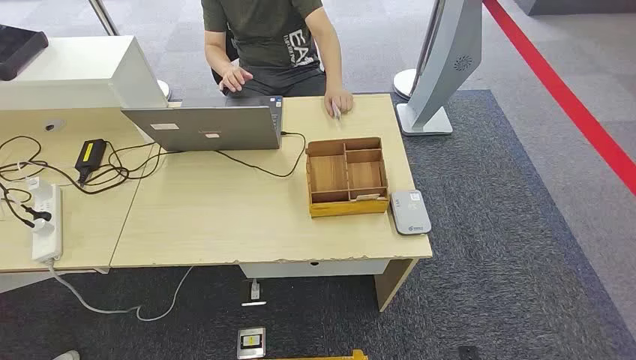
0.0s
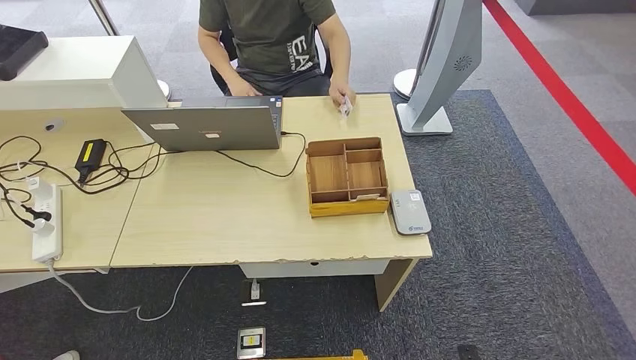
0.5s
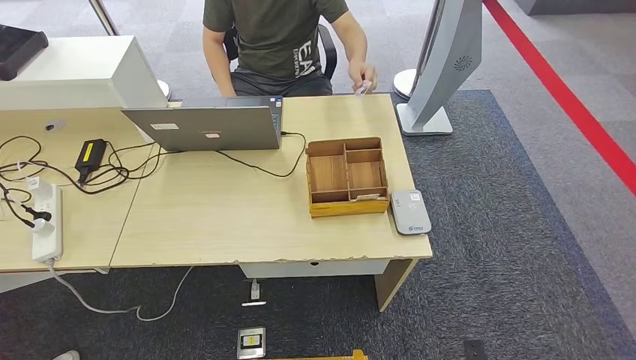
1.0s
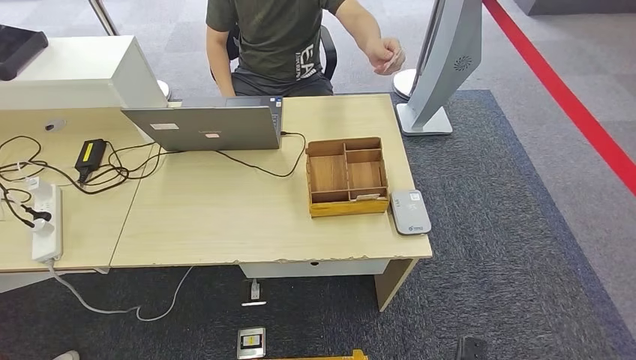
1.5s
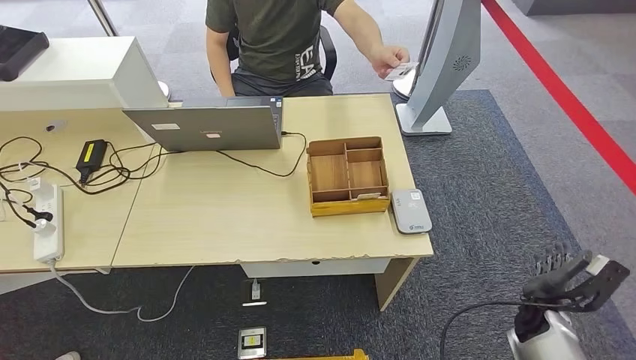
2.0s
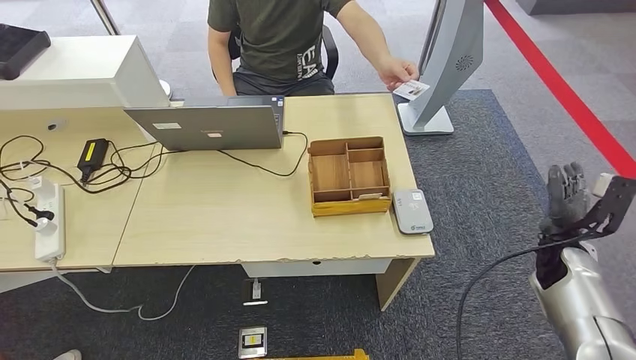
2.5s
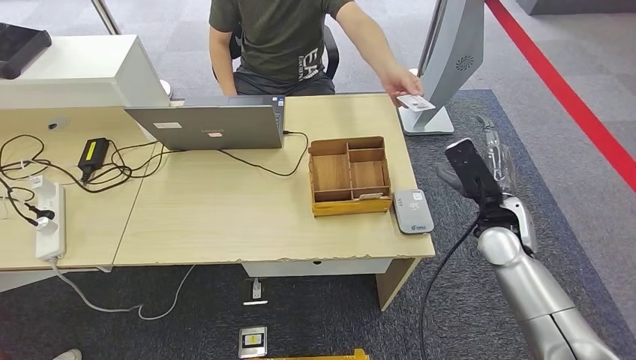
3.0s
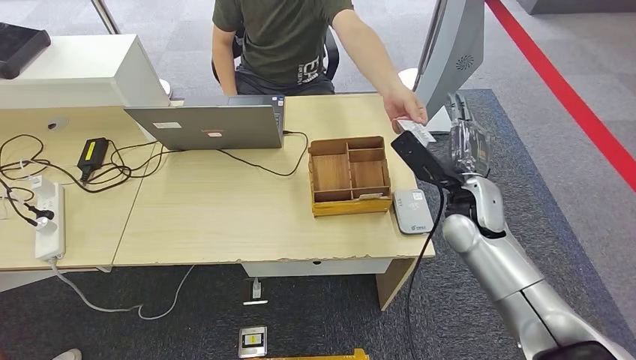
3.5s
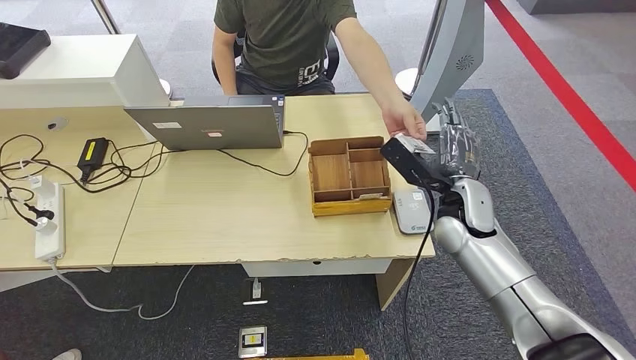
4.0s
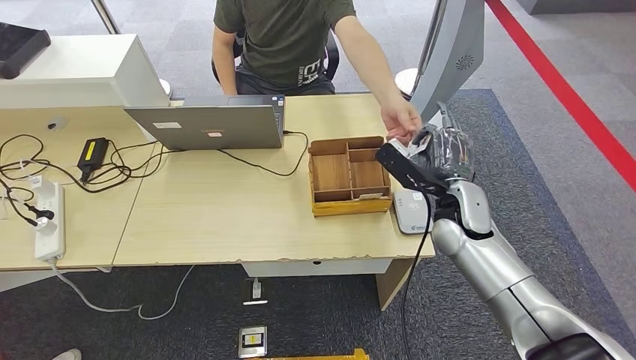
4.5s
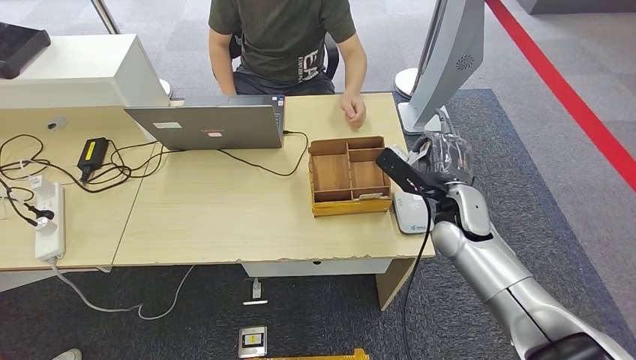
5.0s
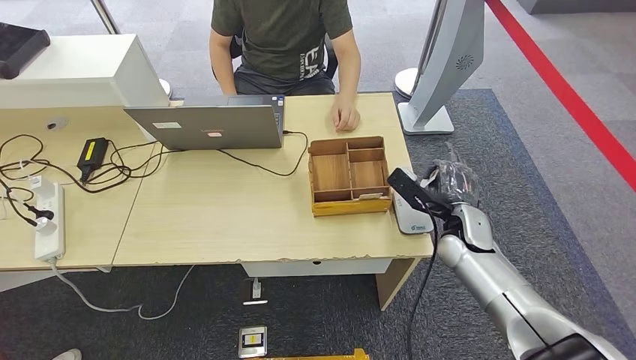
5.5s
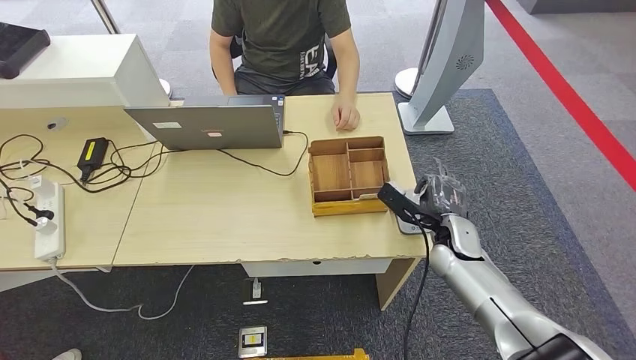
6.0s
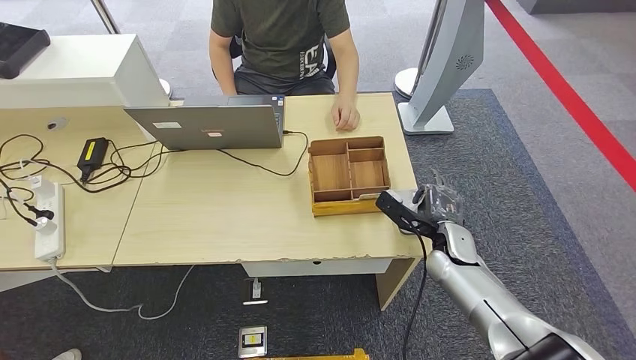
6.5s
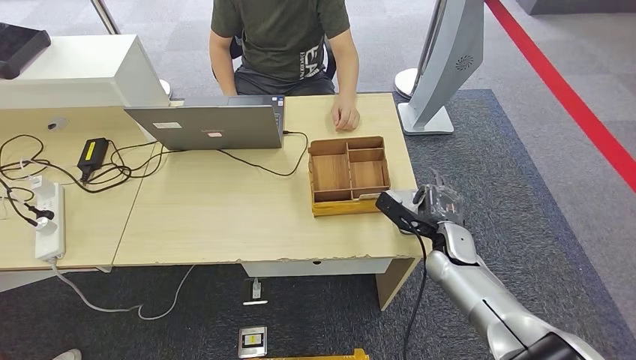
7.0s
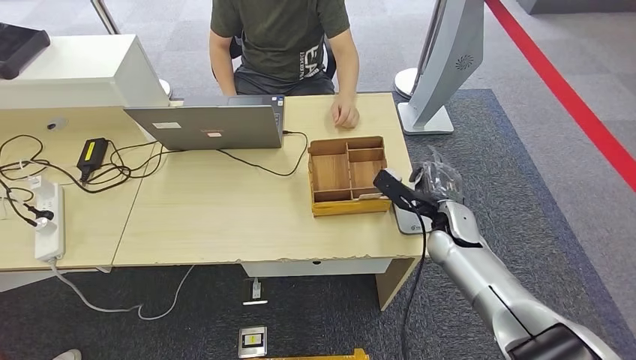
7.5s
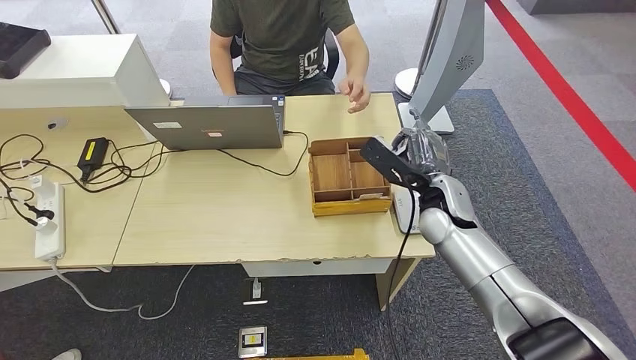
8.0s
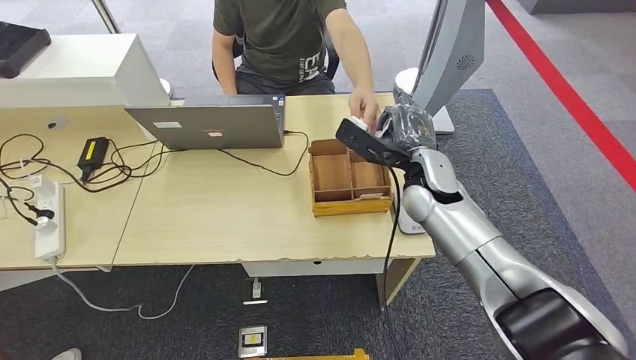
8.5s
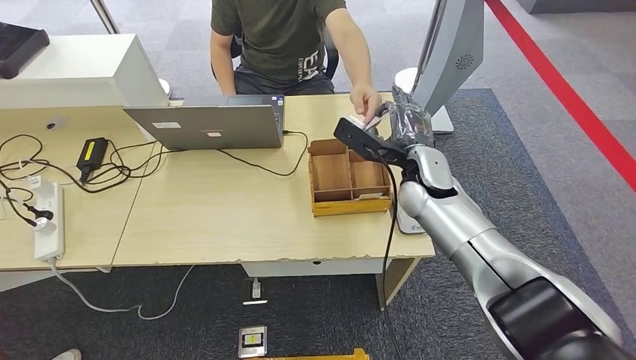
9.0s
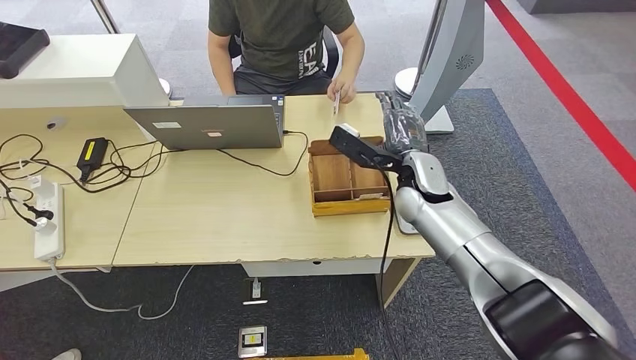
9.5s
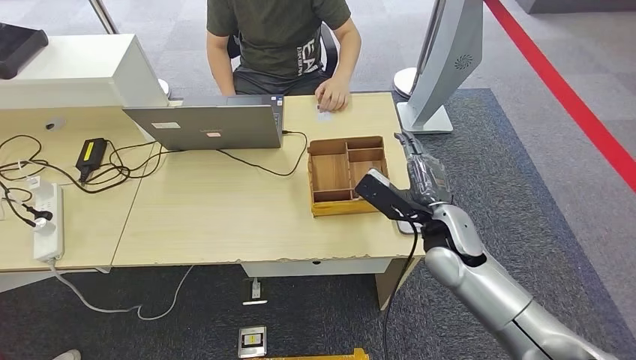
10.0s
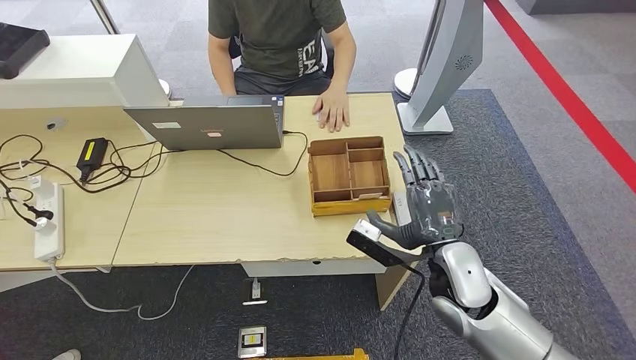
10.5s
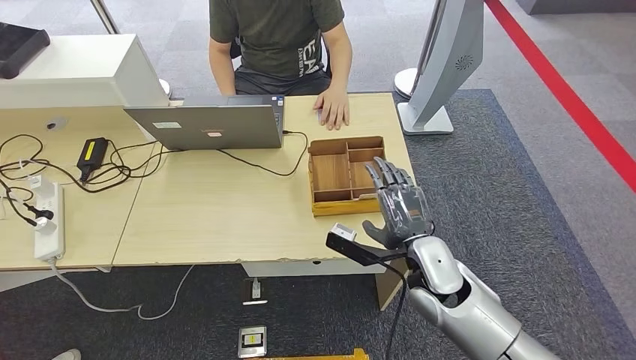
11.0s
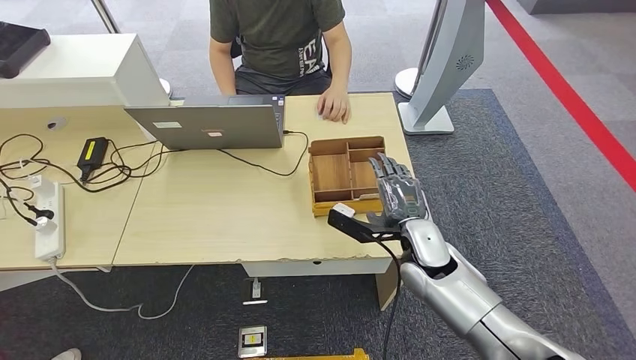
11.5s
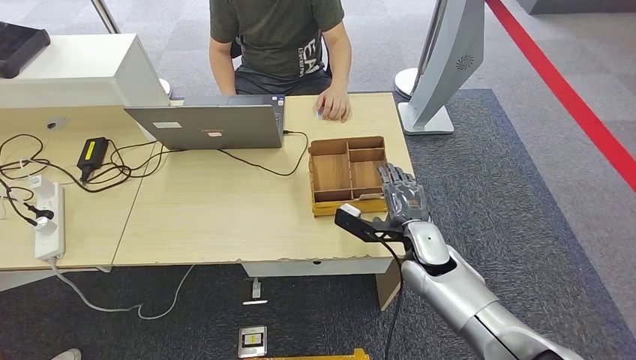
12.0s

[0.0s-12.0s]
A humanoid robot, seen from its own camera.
Step, 0.0s to 5.0s: Take the ID card from the person's hand.
Step, 5.5s to 7.0s: Place the ID card on the card reader.
Step, 7.5s to 9.0s: Hand the ID card to the person.
2.0s to 4.0s: The right hand moves upward, to the left and forward, roughly 30 cm.
4.0s to 6.0s: The right hand is displaced downward by approximately 10 cm.
6.0s to 8.0s: The right hand travels upward by about 10 cm.
8.0s to 10.0s: The right hand heads backward, covering approximately 5 cm.
10.0s to 12.0s: The right hand goes about 5 cm downward.

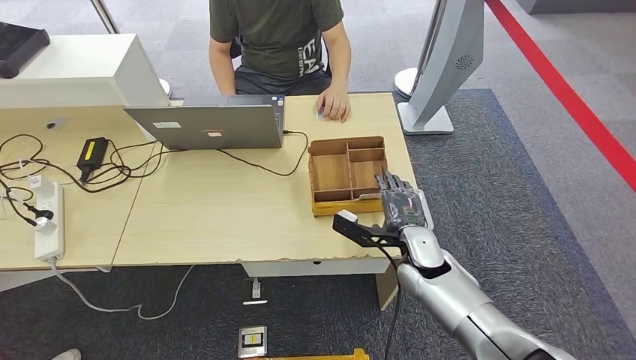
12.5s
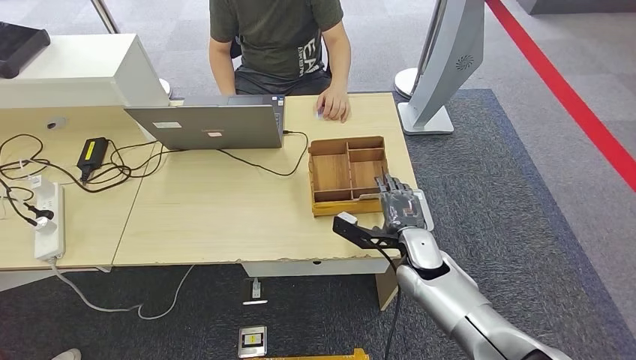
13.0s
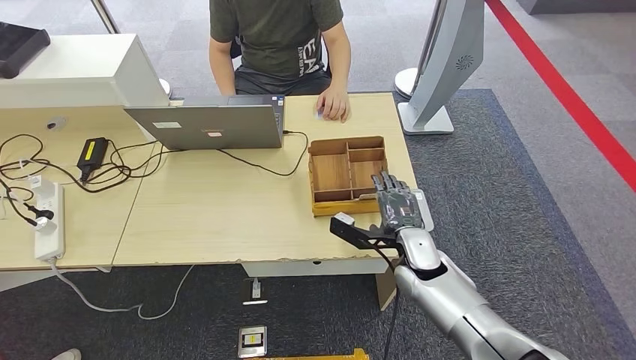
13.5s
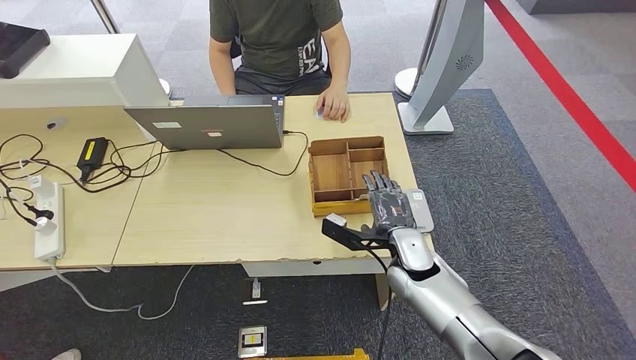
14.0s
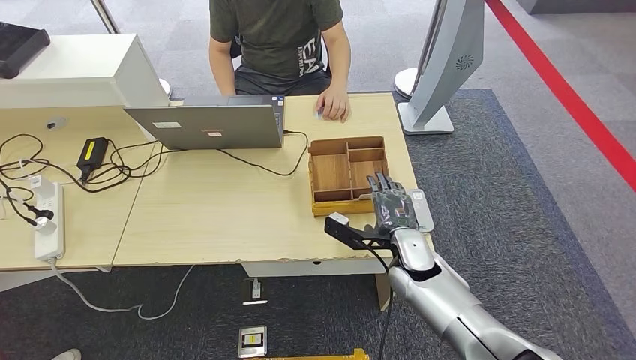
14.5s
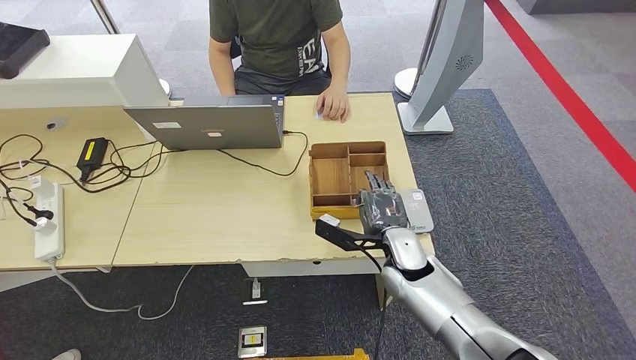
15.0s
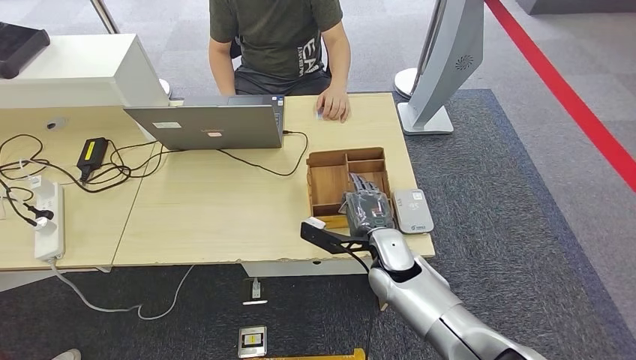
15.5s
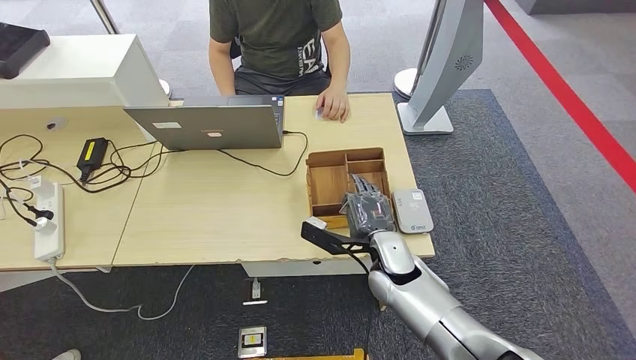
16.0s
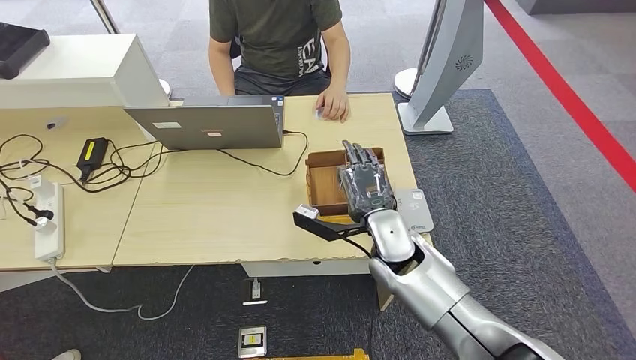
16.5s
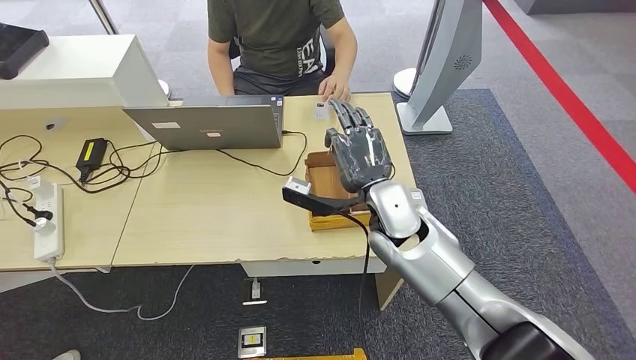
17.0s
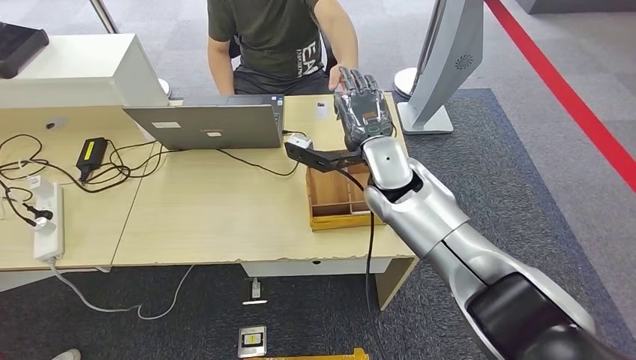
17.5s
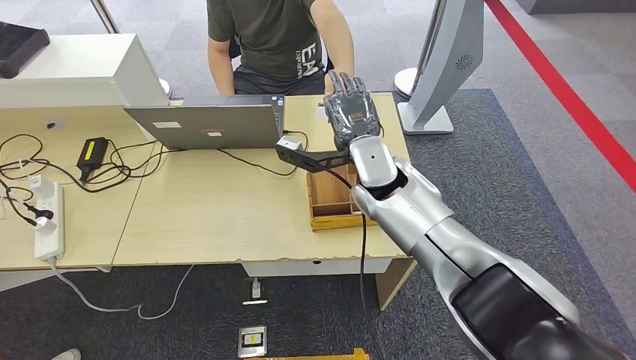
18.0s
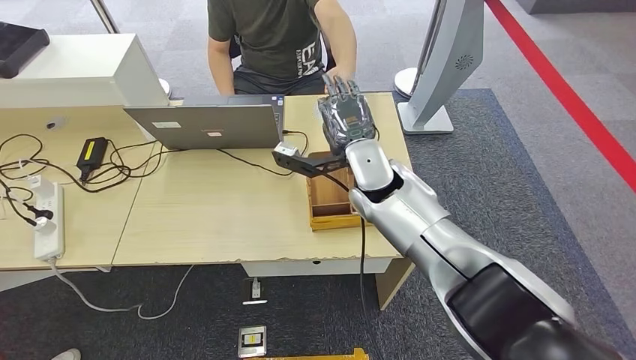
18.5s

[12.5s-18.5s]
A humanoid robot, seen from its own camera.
Step, 12.5s to 15.5s: Pick up the room key from the key card box.
Step, 16.0s to 18.5s: Hand the room key to the person.
12.5s to 14.5s: The hands stay close to where they were, moving slightly.
14.5s to 16.5s: The right hand is displaced upward and to the left by about 10 cm.
16.5s to 18.5s: The right hand moves upward and forward, some 15 cm.
